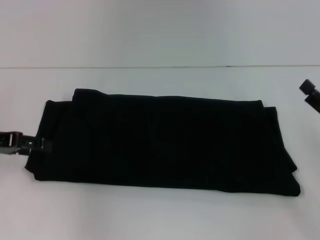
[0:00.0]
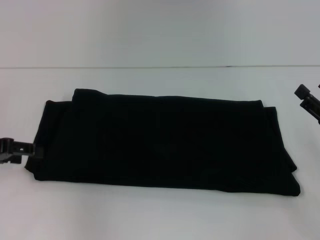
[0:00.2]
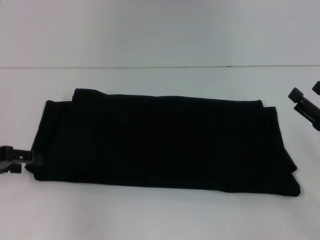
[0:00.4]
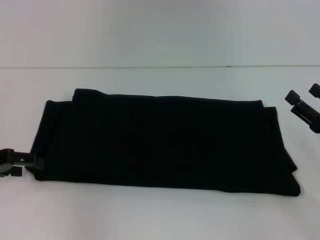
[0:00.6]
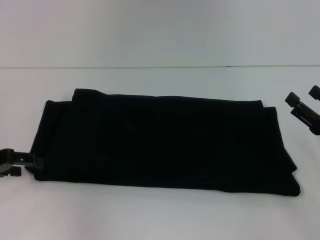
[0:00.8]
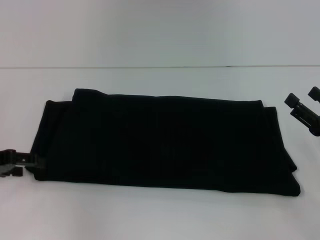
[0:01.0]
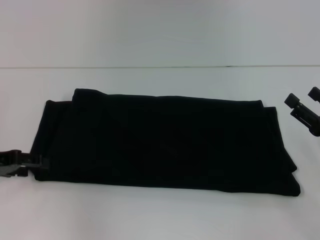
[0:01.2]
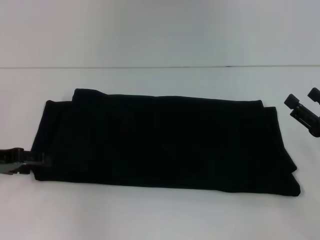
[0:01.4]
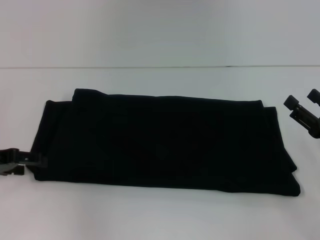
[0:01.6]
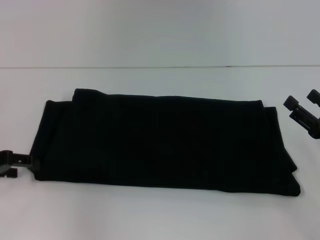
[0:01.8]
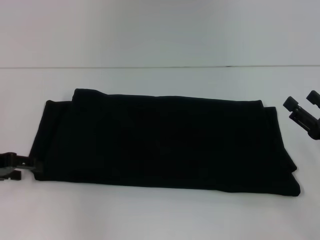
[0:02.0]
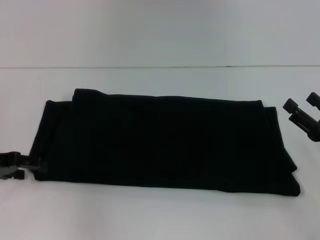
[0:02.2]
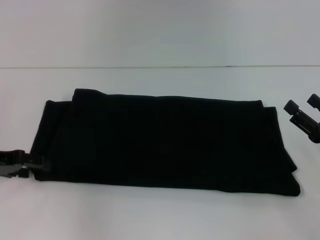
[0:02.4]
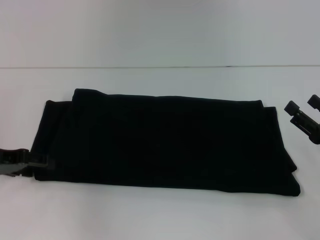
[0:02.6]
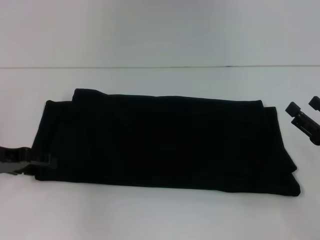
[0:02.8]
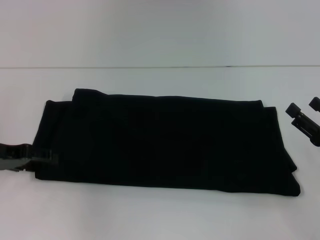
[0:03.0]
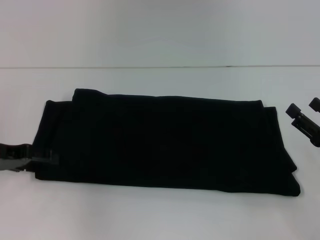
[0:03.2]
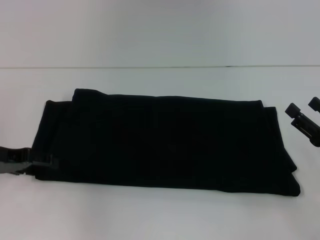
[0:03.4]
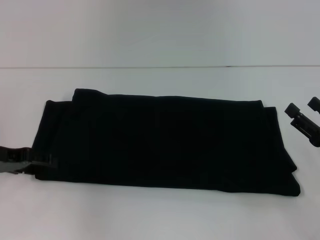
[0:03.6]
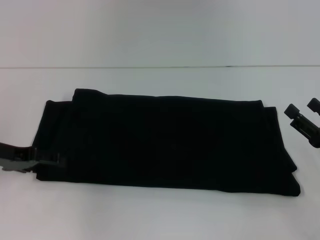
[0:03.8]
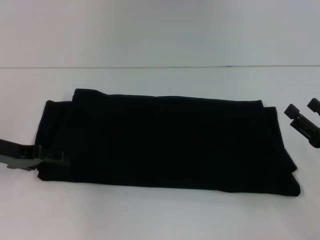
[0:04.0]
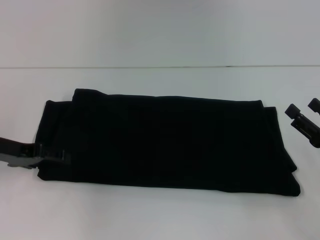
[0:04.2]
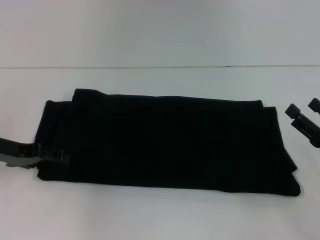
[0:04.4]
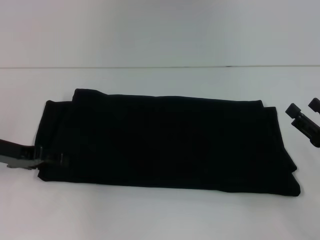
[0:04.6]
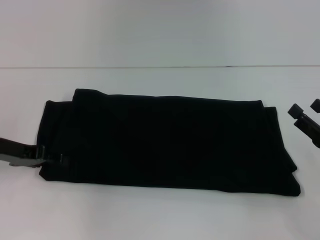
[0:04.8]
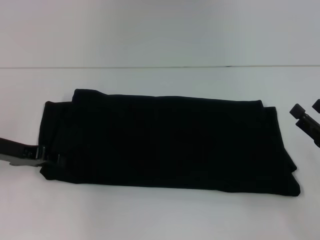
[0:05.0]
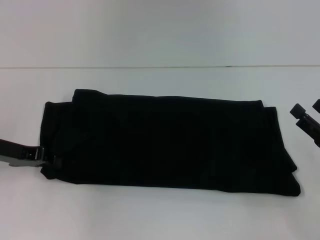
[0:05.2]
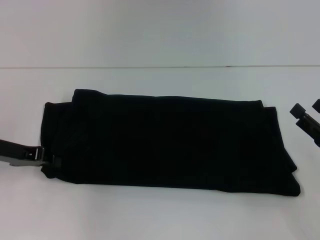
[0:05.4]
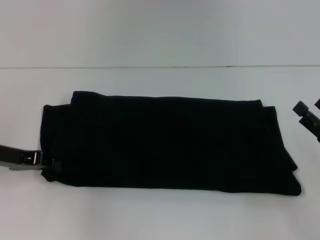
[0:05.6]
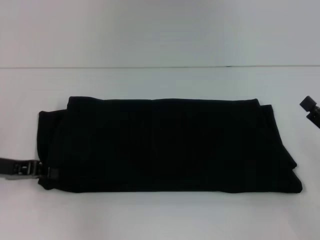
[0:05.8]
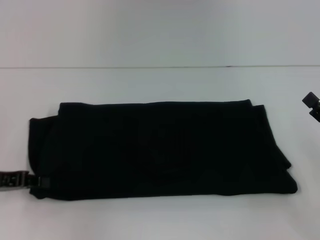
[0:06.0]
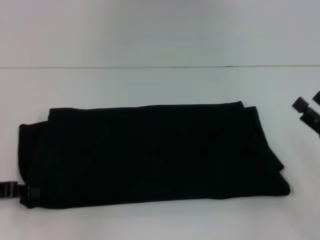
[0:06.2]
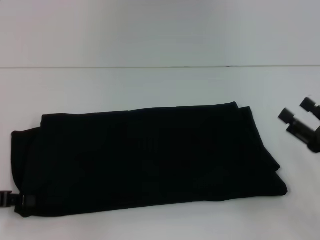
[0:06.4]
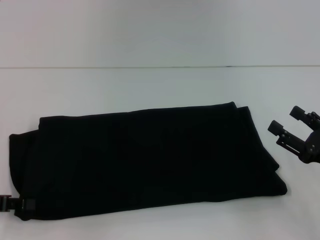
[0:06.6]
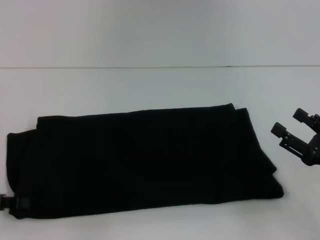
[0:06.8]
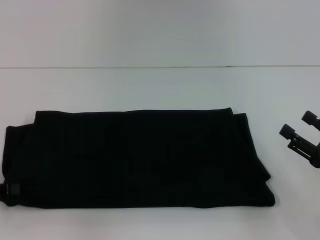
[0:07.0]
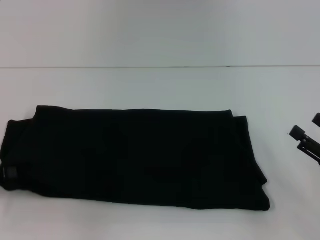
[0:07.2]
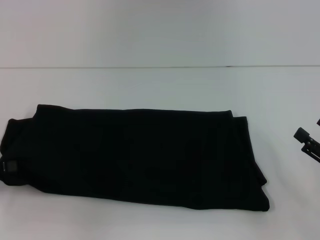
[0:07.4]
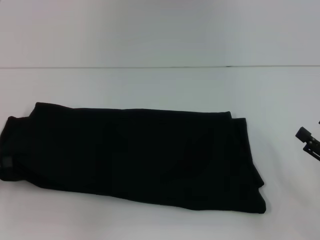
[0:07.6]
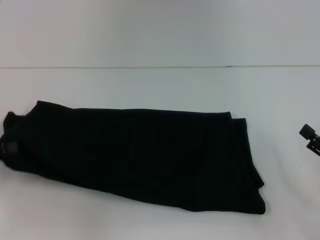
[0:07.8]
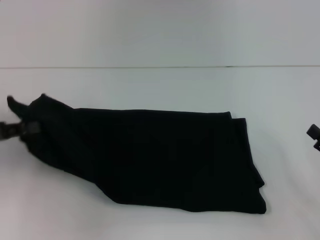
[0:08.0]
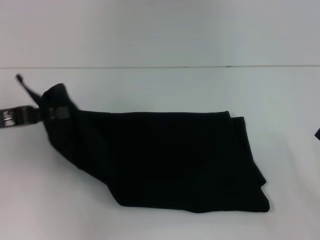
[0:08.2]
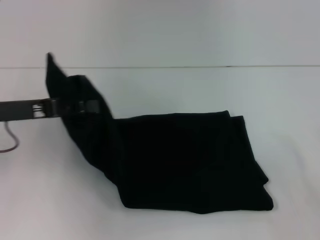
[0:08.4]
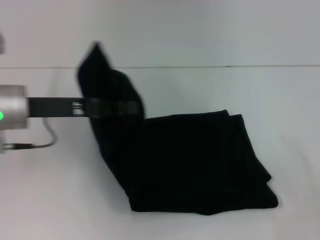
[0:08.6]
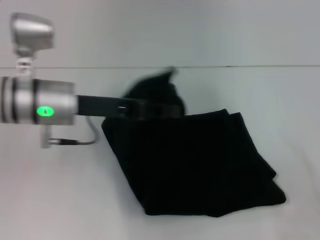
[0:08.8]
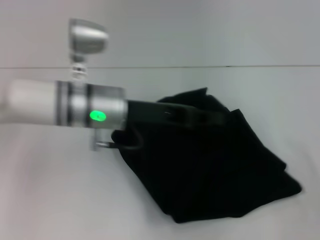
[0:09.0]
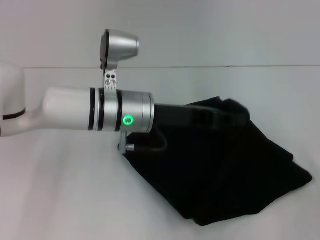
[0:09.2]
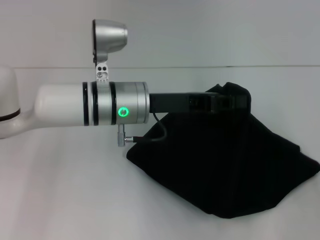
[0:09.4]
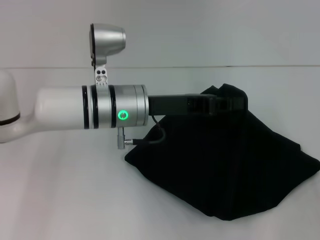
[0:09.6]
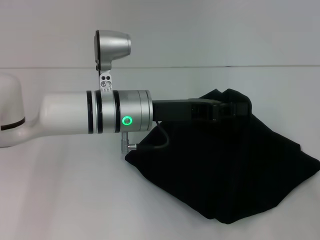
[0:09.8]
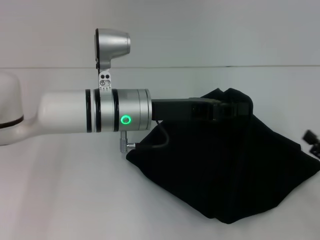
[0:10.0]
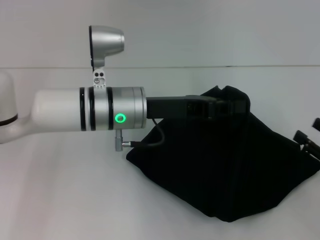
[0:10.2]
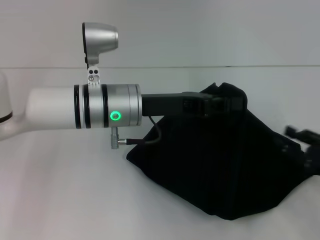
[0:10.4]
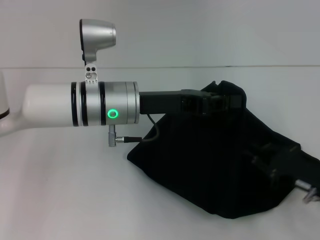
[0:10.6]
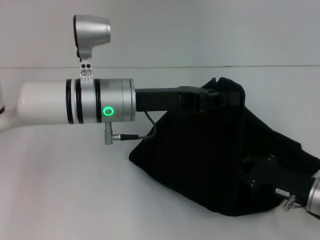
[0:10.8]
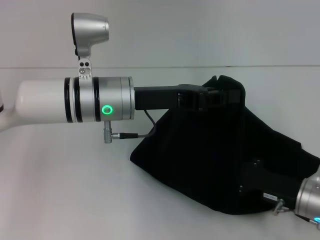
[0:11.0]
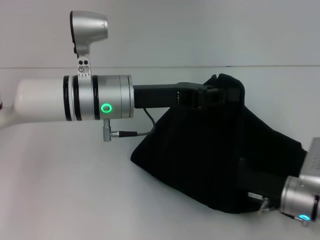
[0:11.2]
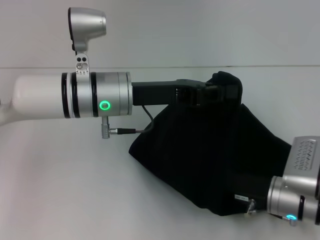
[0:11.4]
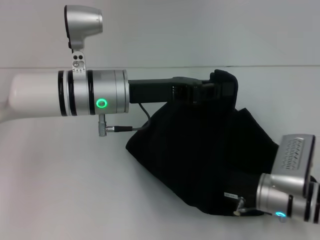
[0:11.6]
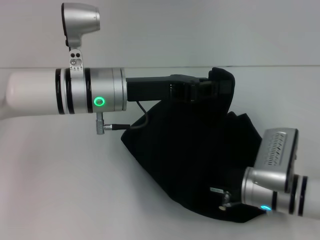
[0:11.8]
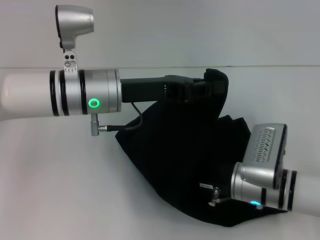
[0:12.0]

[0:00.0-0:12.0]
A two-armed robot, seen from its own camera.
0:00.0 to 0:04.4: The grippers stay close to where they were, moving slightly.
0:04.4 to 0:06.0: The left gripper travels backward by about 5 cm, and closes up.
0:06.0 to 0:07.6: The left gripper moves to the left, roughly 5 cm.
0:07.6 to 0:09.0: The left gripper goes some 30 cm to the right, while the right gripper moves about 5 cm.
0:09.0 to 0:10.4: The right gripper heads forward, covering approximately 5 cm.
0:10.4 to 0:12.0: The right gripper shifts some 20 cm to the left, and closes.

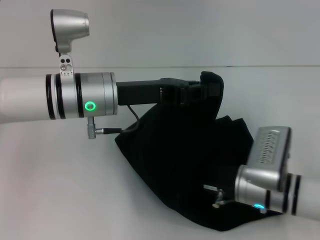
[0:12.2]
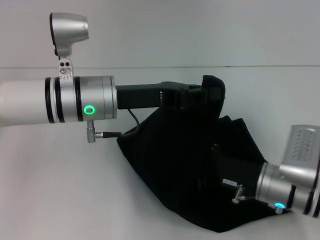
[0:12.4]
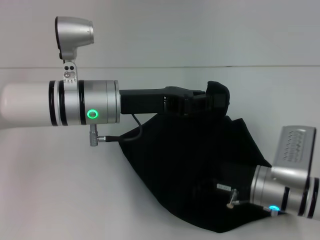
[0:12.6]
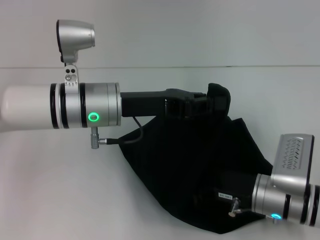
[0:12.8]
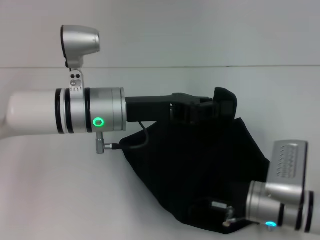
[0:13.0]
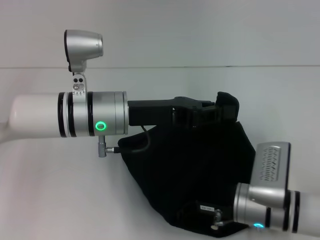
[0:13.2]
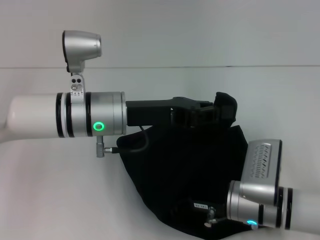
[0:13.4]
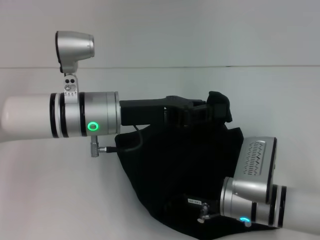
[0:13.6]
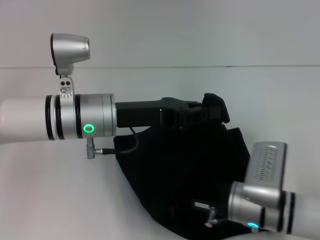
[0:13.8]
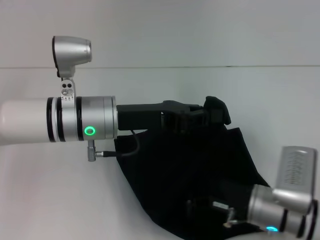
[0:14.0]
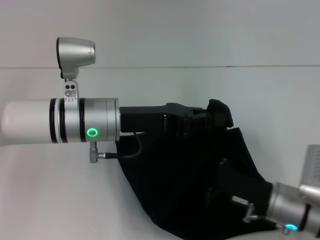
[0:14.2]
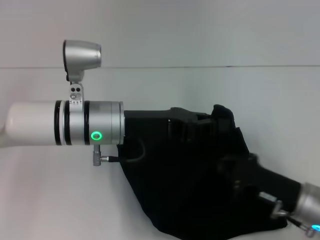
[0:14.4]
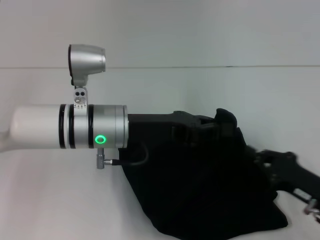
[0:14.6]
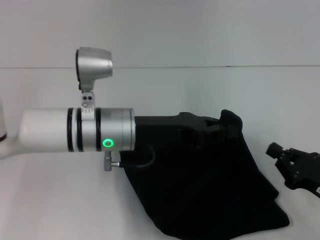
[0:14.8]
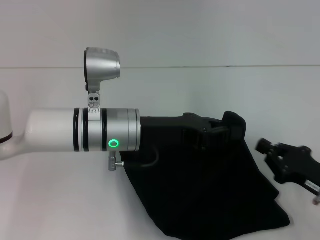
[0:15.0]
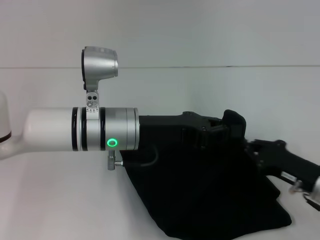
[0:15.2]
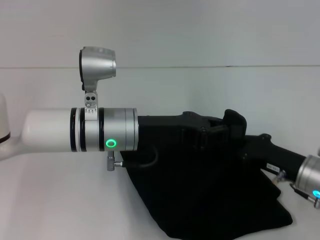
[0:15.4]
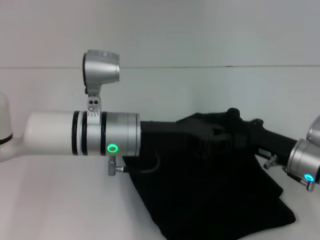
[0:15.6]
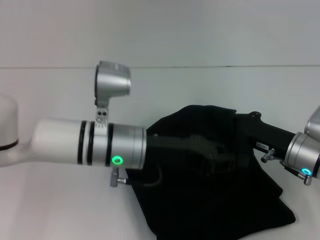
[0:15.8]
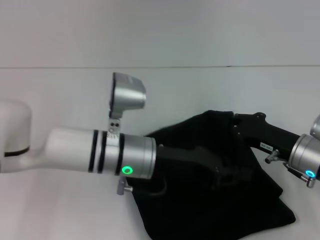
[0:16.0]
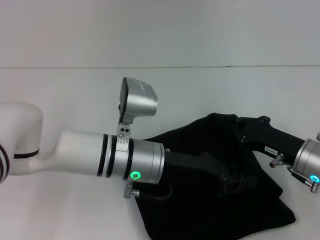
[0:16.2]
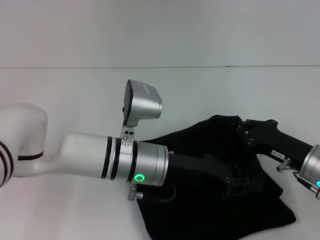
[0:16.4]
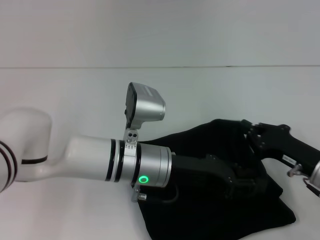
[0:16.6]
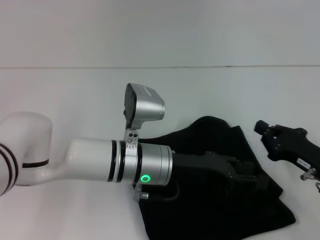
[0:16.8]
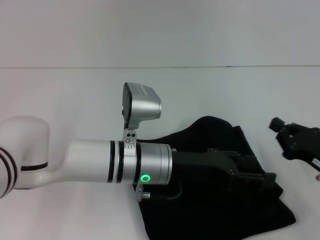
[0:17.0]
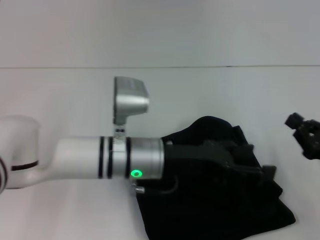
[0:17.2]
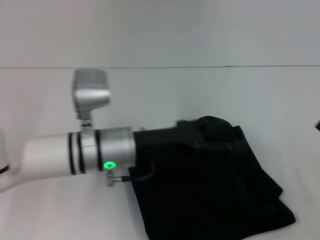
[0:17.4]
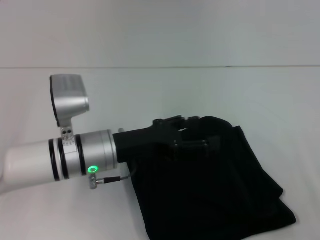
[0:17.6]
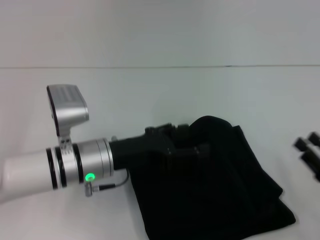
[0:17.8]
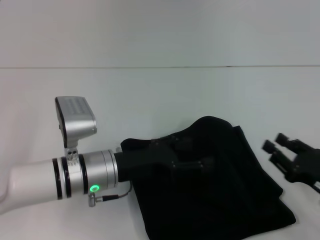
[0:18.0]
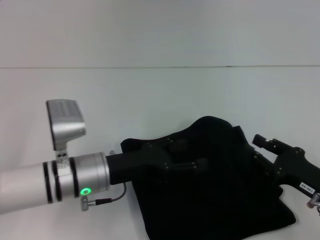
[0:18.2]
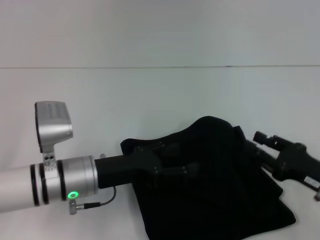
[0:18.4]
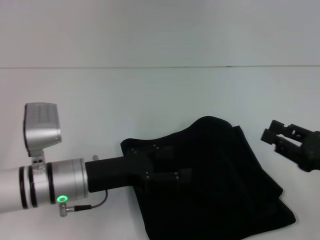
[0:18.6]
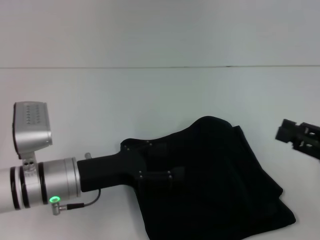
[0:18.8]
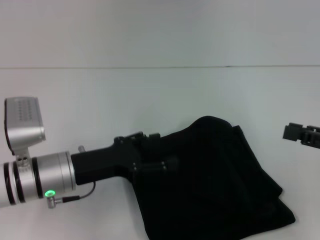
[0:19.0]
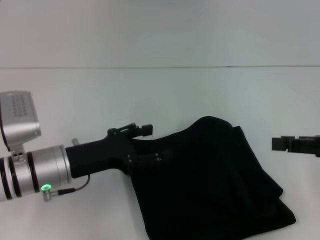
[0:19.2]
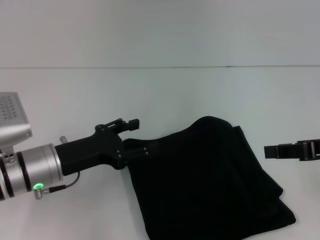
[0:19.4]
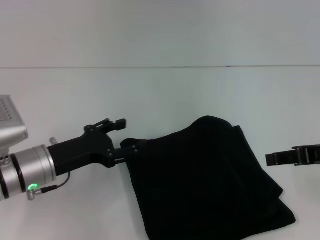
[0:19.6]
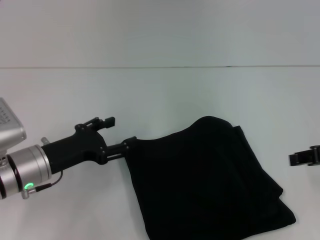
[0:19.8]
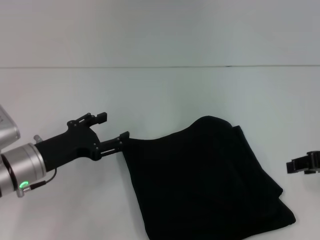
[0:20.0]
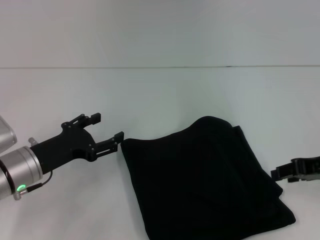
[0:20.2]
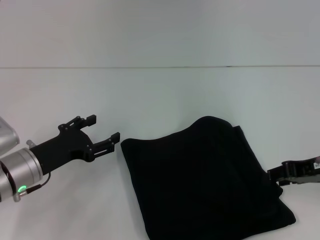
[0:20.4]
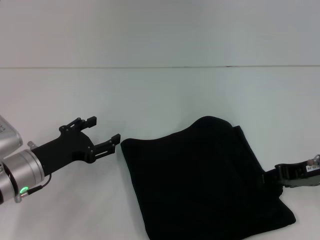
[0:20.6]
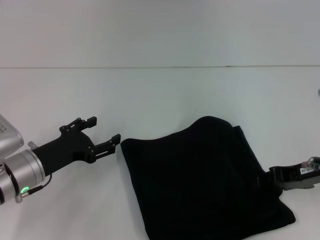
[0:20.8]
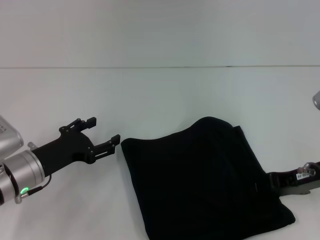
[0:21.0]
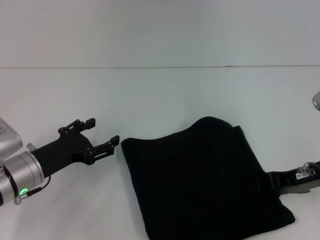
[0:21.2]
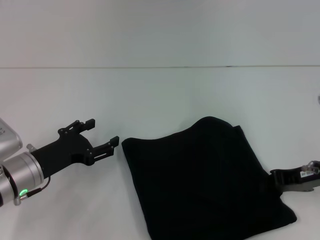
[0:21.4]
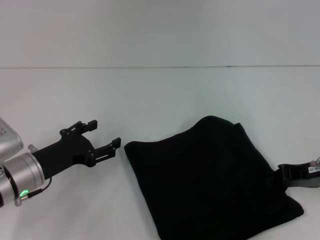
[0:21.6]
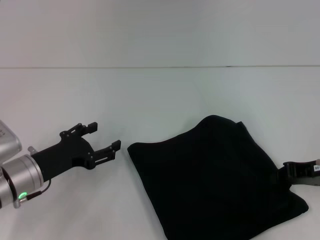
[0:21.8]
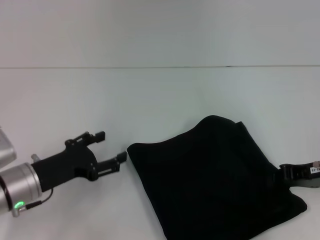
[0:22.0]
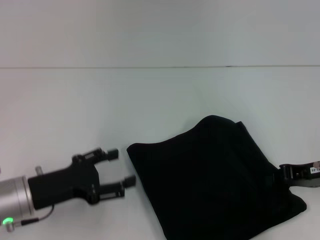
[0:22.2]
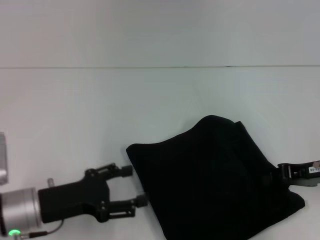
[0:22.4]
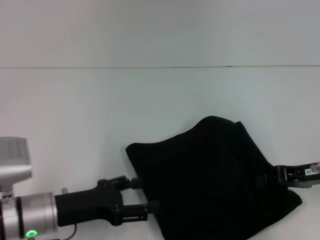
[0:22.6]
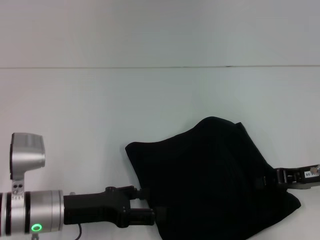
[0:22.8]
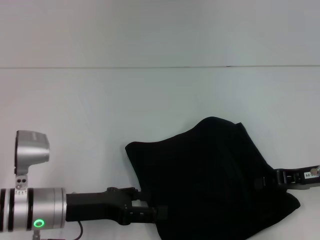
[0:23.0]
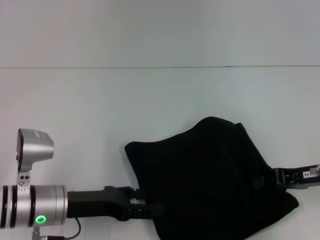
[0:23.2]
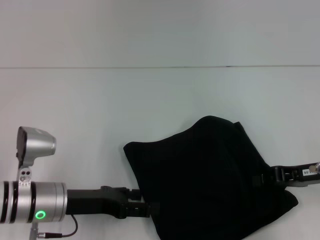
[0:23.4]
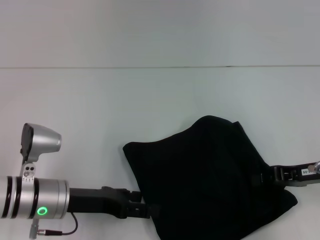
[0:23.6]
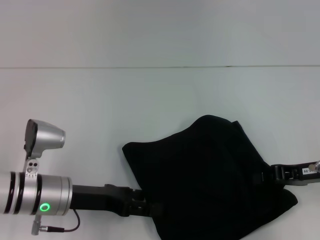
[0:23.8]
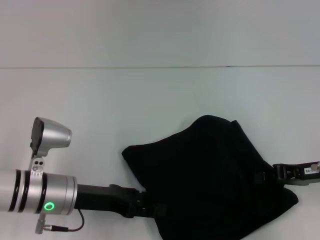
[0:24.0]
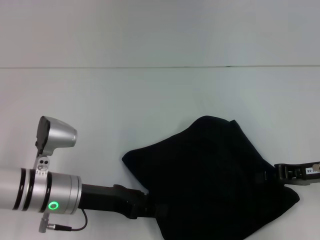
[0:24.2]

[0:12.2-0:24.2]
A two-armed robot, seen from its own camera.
Step, 0:12.2 to 0:18.8: Fold the clothes with your left hand.
0:13.8 to 0:15.2: The right gripper heads to the right, covering approximately 10 cm.
0:15.2 to 0:16.6: The left gripper moves approximately 5 cm.
0:16.6 to 0:18.2: The right gripper goes to the right and returns, approximately 10 cm each way, and opens its fingers; the left gripper travels to the left by some 10 cm, and opens.
0:18.2 to 0:19.8: The right gripper is displaced upward by about 15 cm. Meanwhile the left gripper shifts about 10 cm to the left.
0:19.8 to 0:21.2: The right gripper shifts roughly 10 cm downward.
0:21.2 to 0:22.6: The left gripper ends up some 5 cm from where it was.
0:22.6 to 0:24.2: The left gripper moves about 5 cm.
